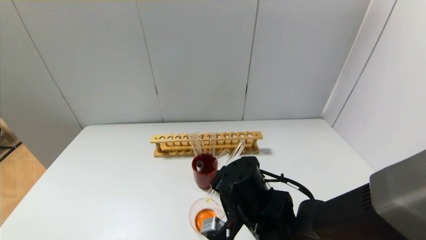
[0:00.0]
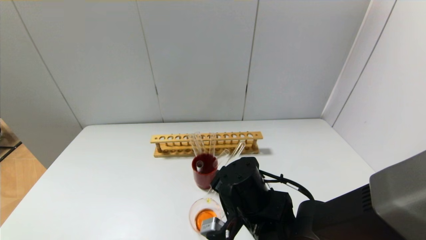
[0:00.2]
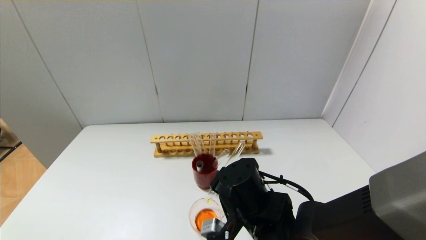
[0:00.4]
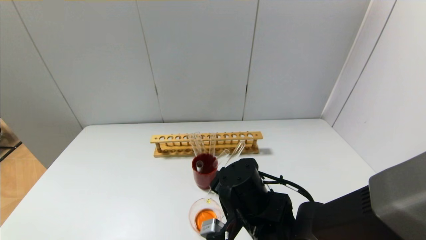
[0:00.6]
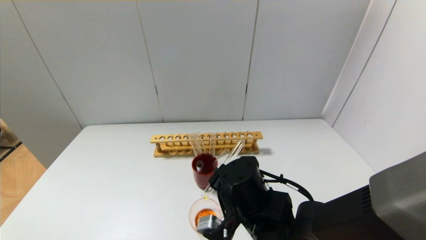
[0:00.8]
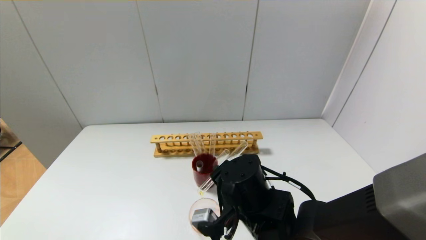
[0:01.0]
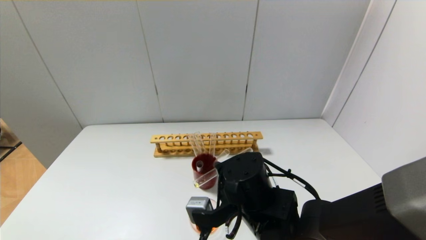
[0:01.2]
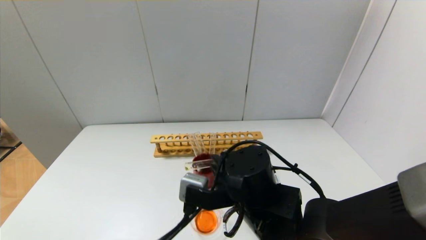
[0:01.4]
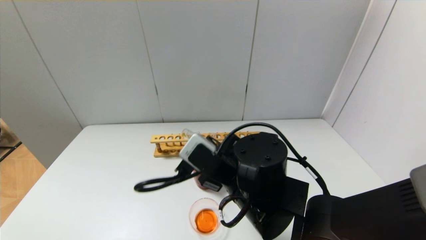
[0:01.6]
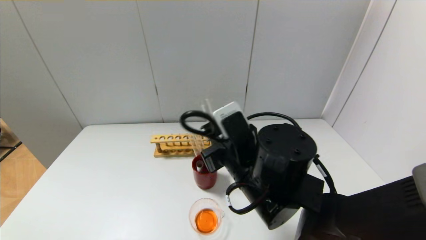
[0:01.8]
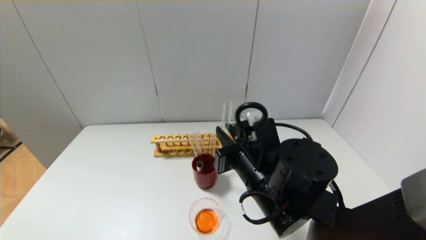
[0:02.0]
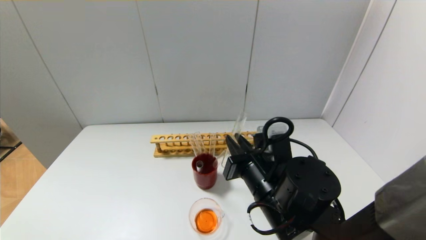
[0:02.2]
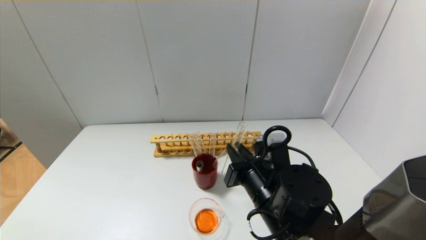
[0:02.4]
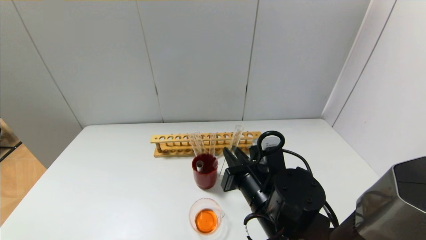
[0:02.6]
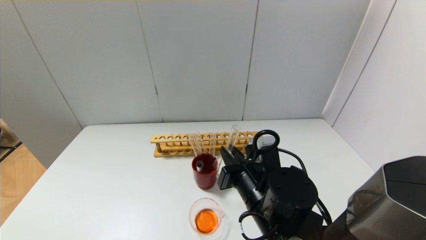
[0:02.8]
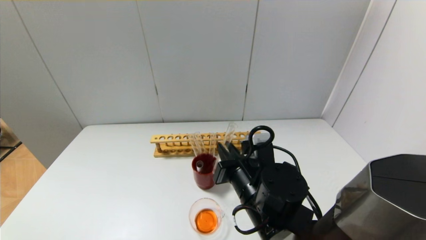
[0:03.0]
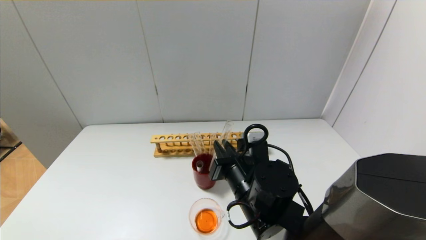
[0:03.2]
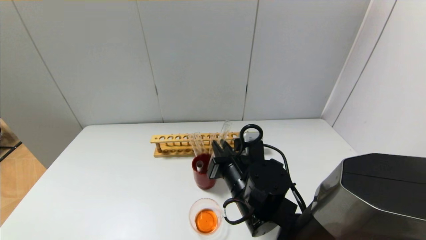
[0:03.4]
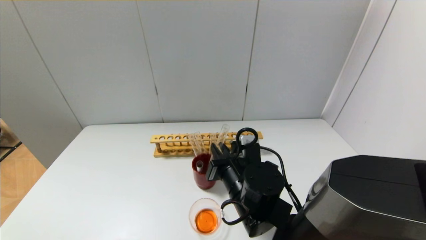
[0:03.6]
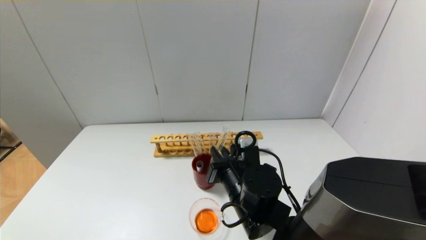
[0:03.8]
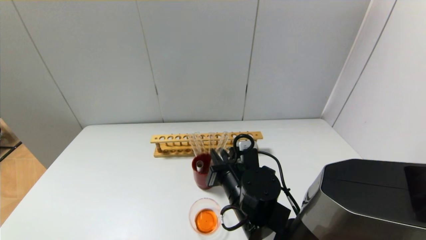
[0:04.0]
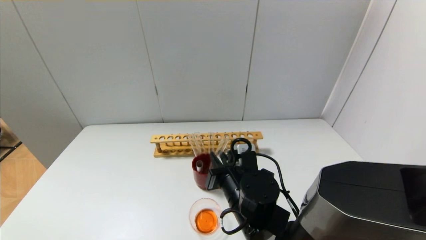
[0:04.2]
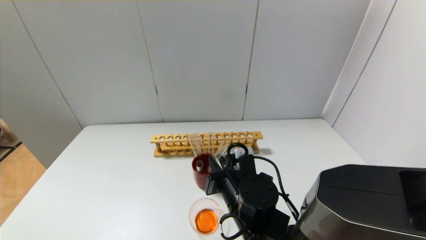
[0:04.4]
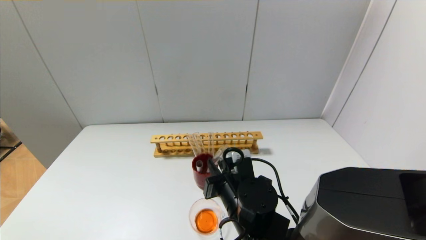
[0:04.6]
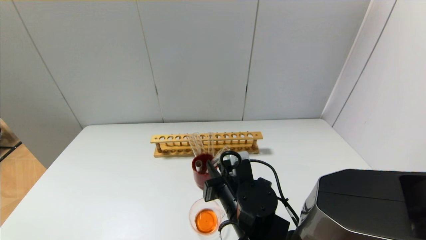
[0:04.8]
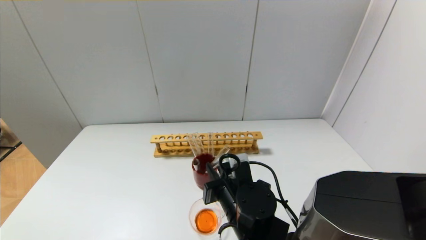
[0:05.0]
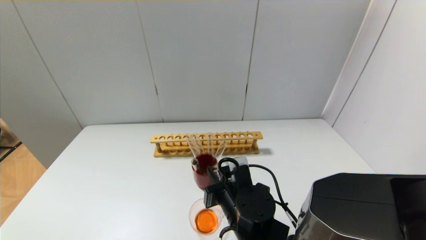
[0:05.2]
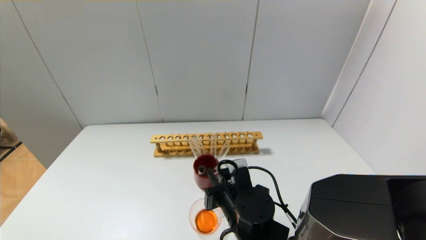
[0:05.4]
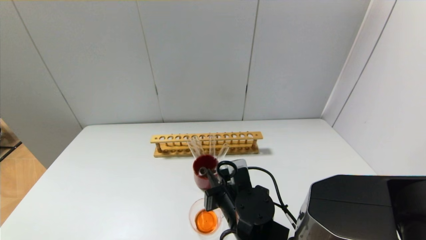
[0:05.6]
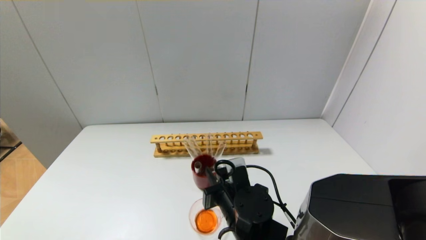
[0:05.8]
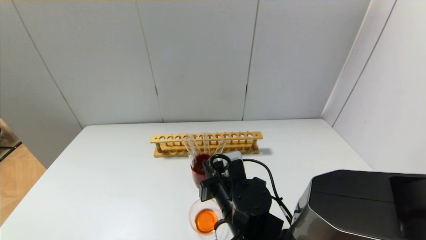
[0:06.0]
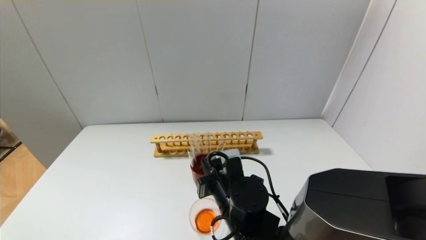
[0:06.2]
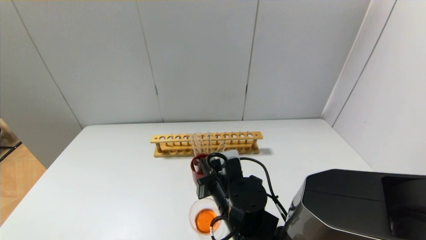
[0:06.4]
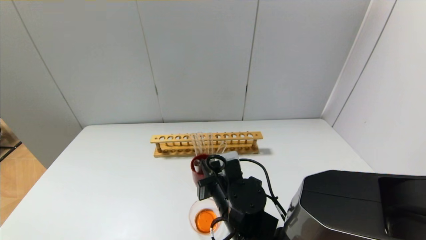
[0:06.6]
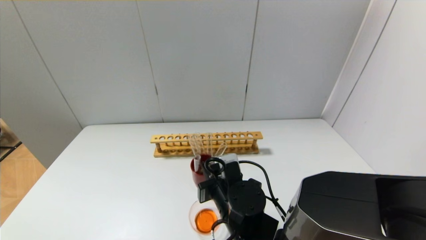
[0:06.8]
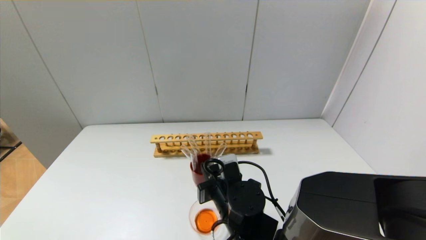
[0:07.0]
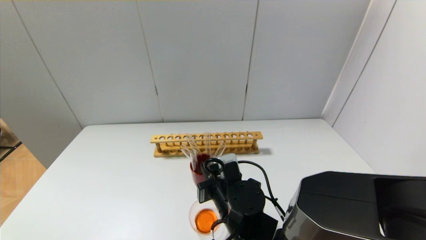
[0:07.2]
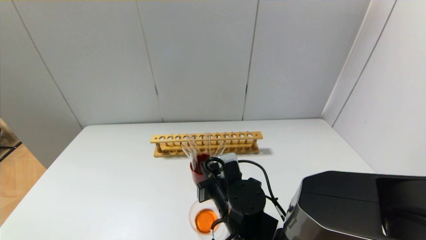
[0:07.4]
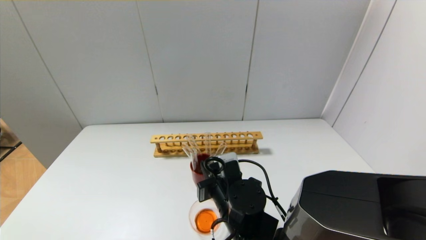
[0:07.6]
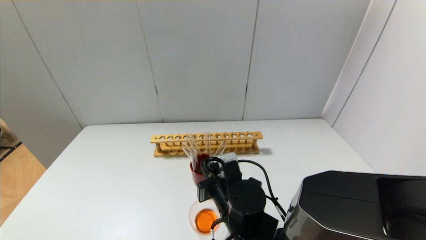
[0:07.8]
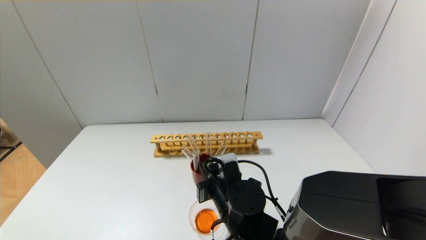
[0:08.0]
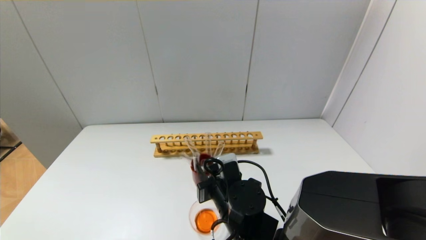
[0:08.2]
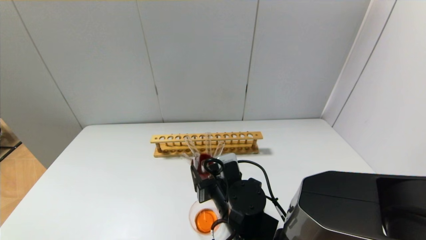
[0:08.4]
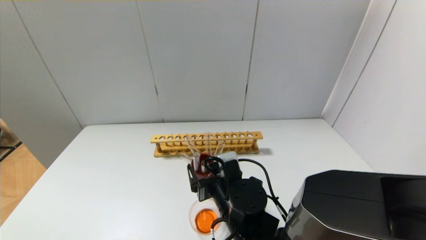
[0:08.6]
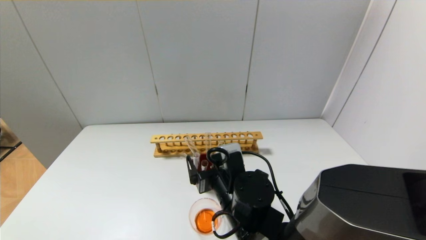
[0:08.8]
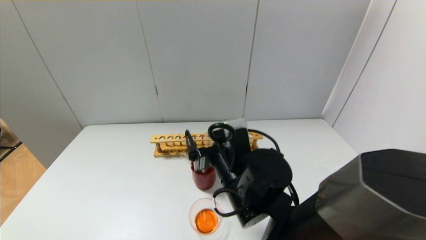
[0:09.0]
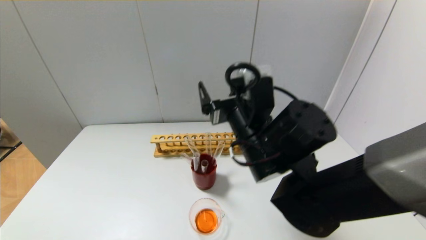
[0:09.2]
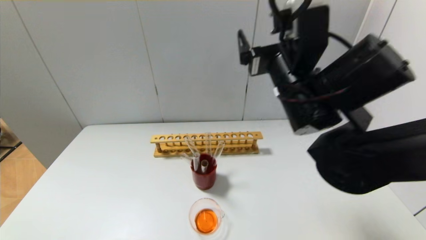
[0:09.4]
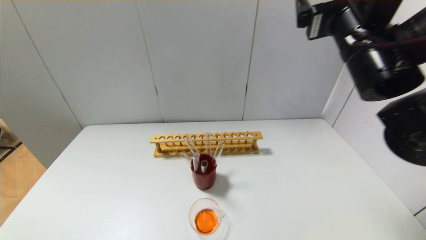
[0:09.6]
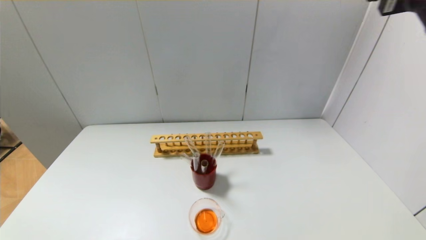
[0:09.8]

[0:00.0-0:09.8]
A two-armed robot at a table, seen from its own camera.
Step, 0:00.8 to 0:08.2: Place the test tube into the brown cup with the right gripper.
0:02.8 to 0:04.2: There are only small adjustments of the grippers.
0:04.2 to 0:07.0: There are only small adjustments of the grippers.
0:07.0 to 0:08.4: The right gripper opens up.
0:08.4 to 0:09.8: The right gripper travels upward and to the right by approximately 40 cm.
